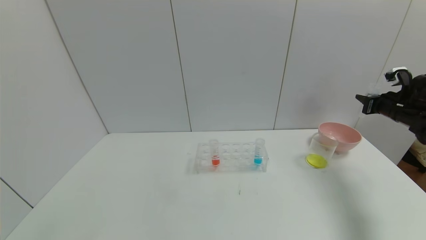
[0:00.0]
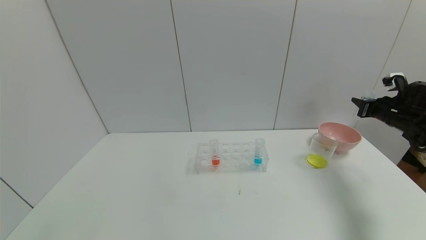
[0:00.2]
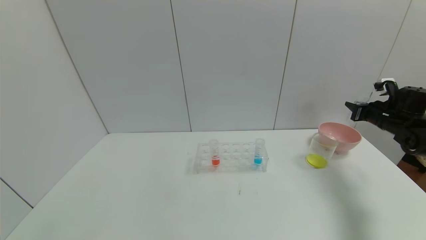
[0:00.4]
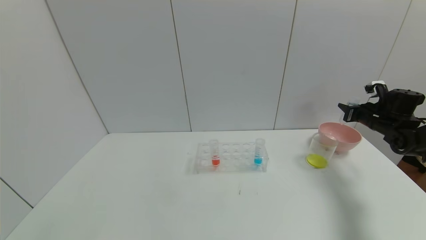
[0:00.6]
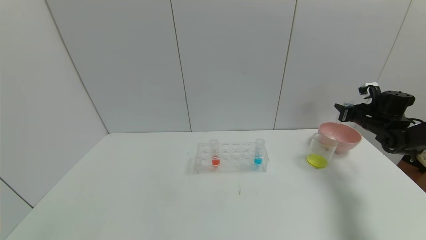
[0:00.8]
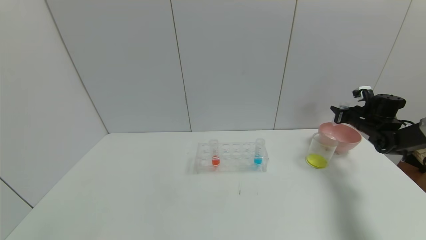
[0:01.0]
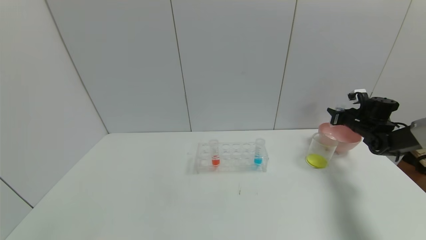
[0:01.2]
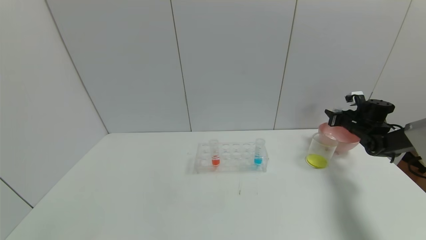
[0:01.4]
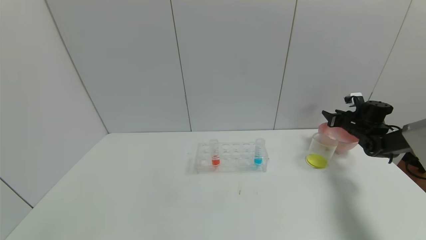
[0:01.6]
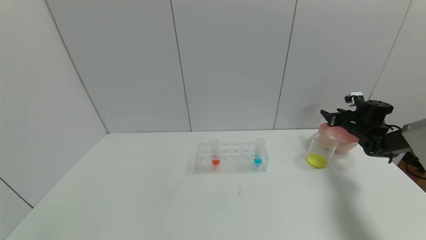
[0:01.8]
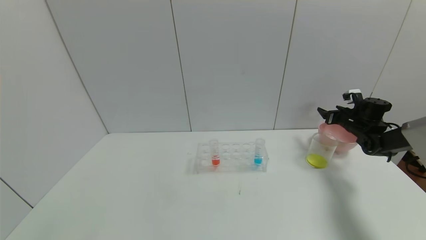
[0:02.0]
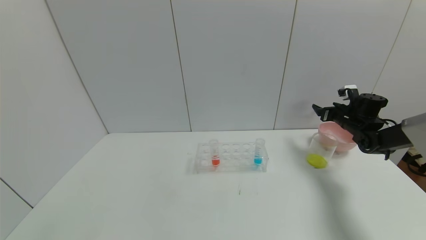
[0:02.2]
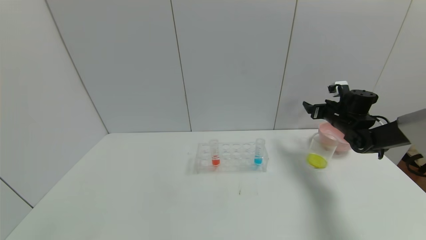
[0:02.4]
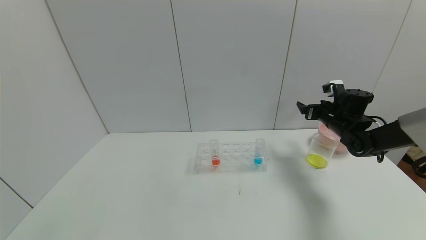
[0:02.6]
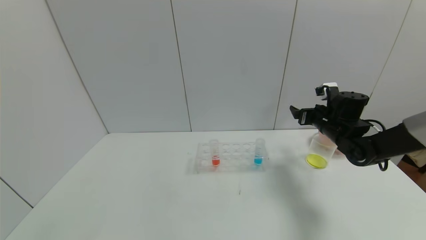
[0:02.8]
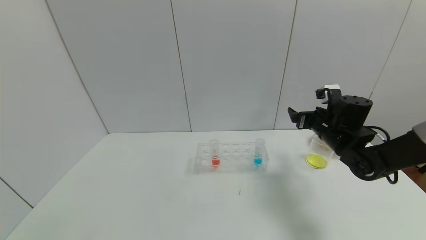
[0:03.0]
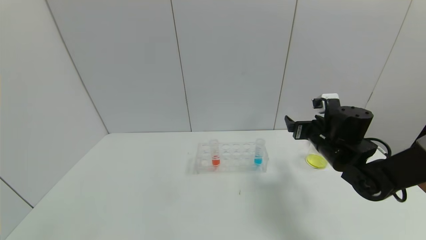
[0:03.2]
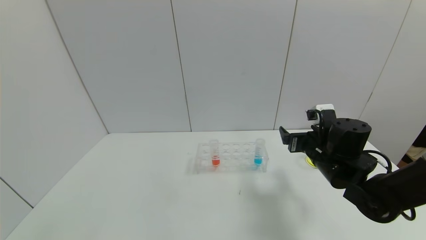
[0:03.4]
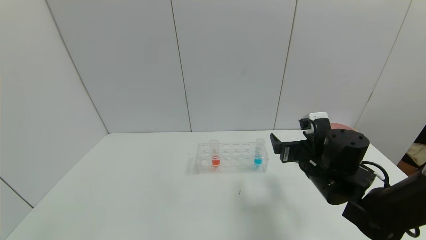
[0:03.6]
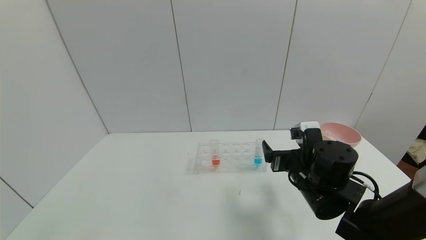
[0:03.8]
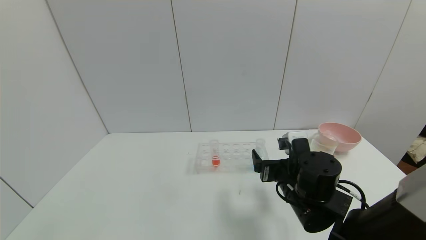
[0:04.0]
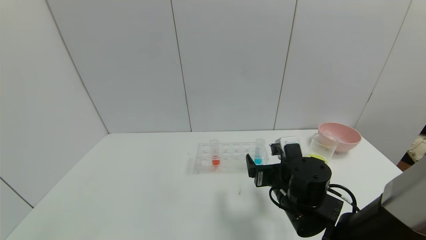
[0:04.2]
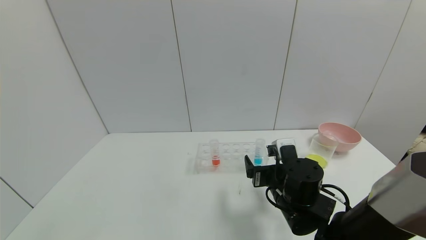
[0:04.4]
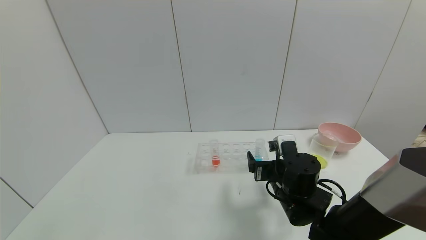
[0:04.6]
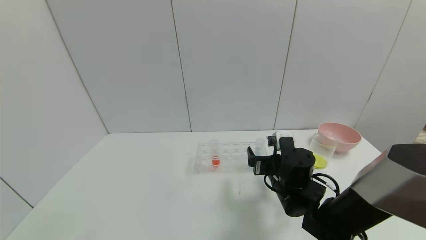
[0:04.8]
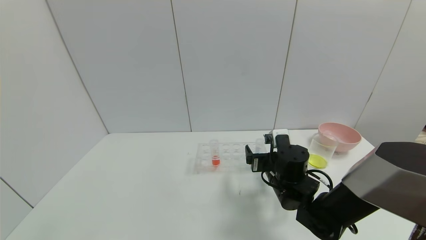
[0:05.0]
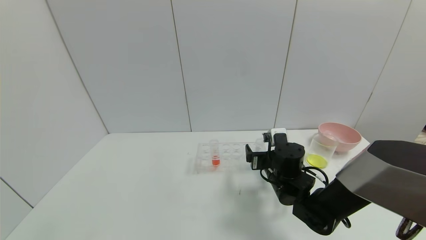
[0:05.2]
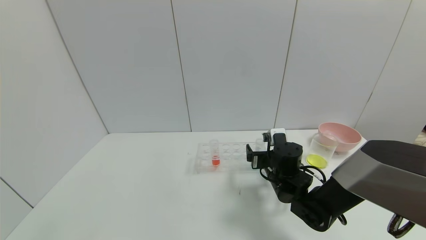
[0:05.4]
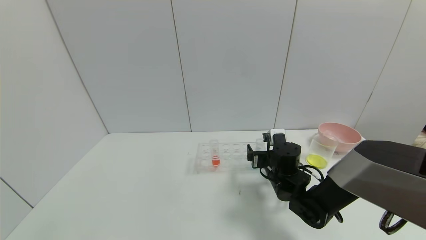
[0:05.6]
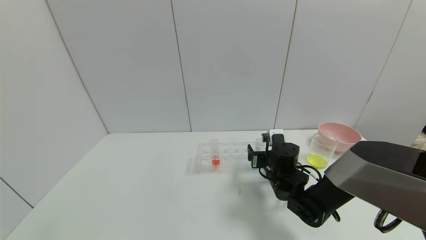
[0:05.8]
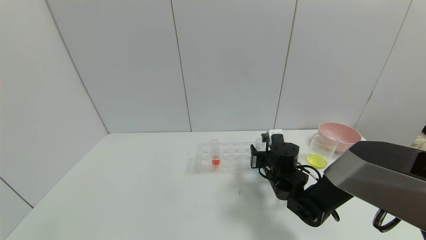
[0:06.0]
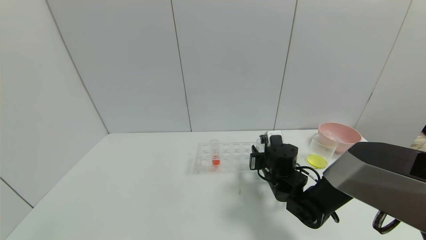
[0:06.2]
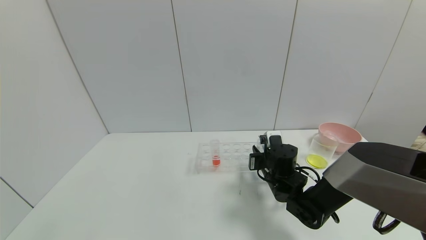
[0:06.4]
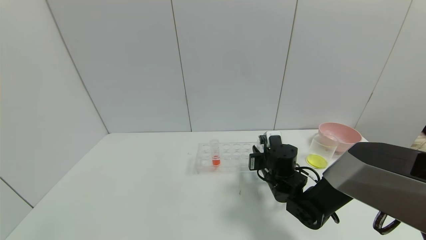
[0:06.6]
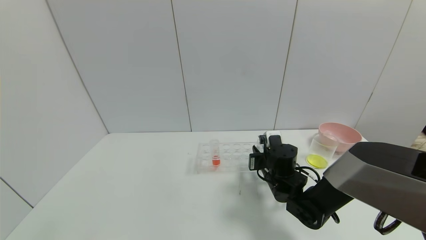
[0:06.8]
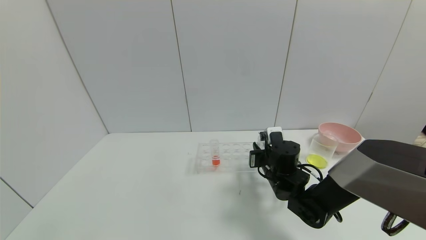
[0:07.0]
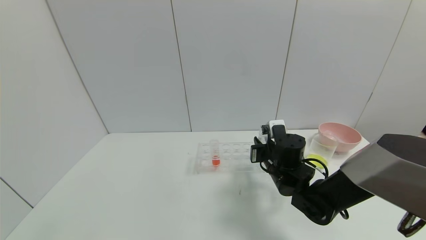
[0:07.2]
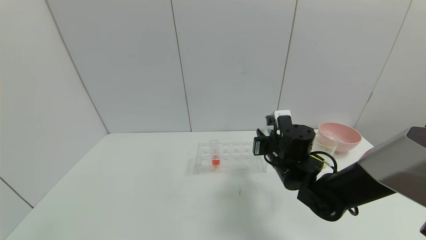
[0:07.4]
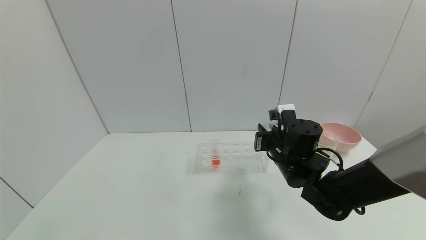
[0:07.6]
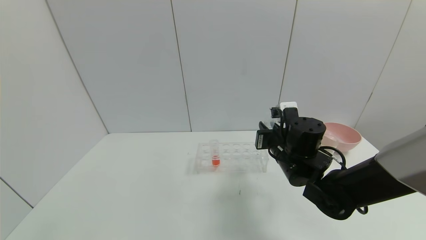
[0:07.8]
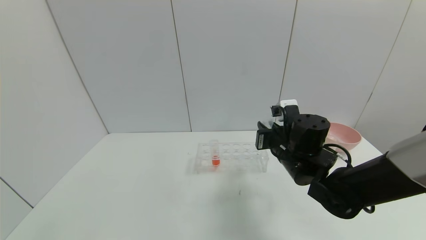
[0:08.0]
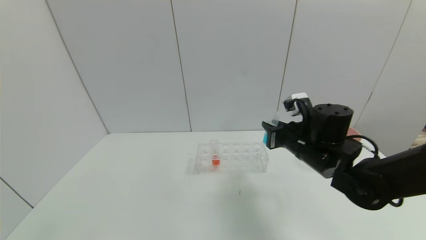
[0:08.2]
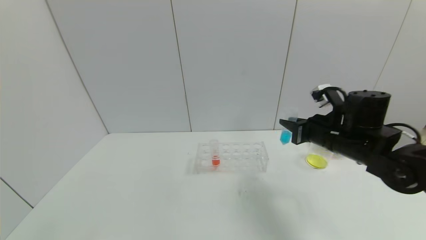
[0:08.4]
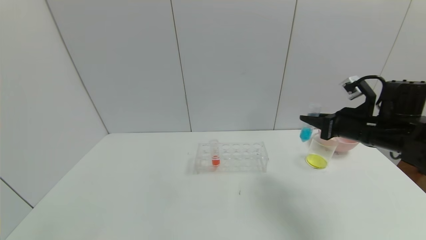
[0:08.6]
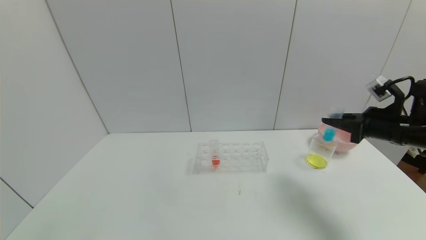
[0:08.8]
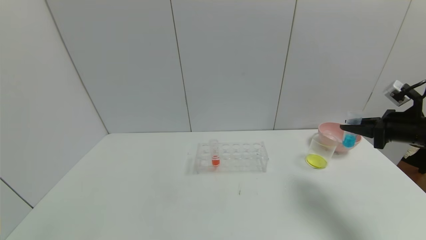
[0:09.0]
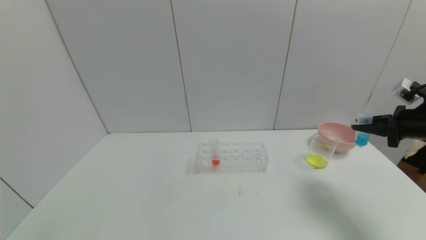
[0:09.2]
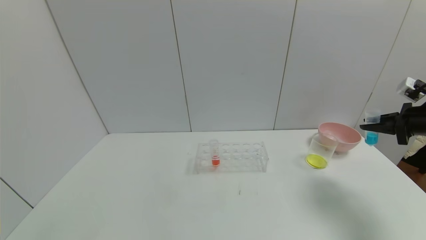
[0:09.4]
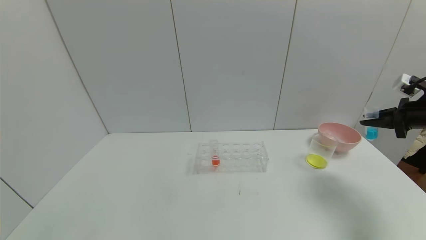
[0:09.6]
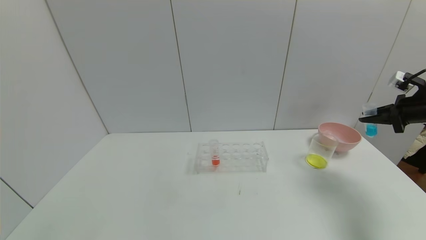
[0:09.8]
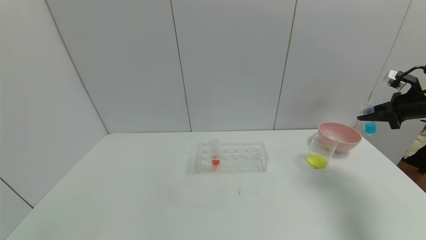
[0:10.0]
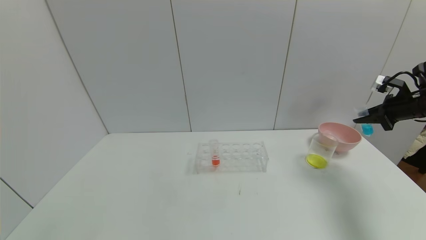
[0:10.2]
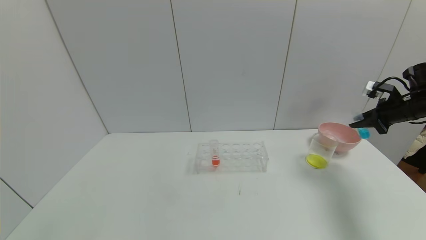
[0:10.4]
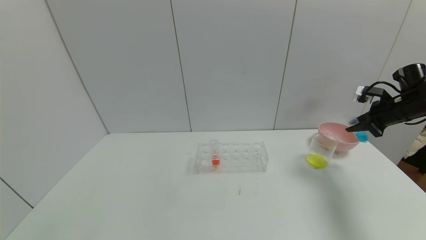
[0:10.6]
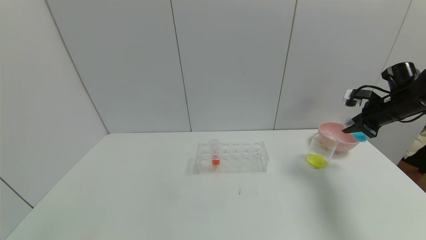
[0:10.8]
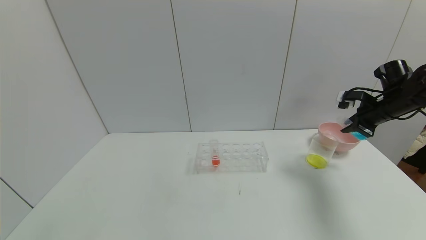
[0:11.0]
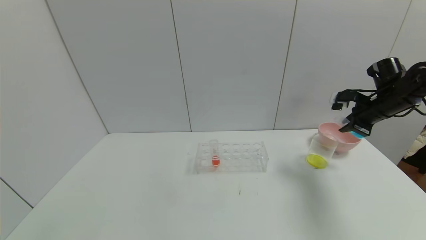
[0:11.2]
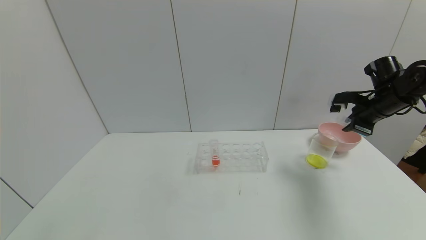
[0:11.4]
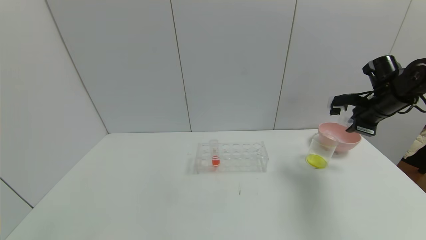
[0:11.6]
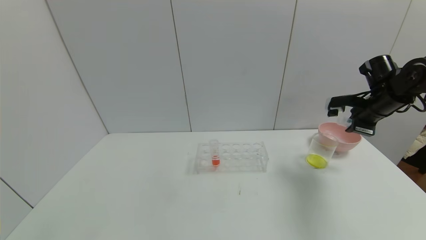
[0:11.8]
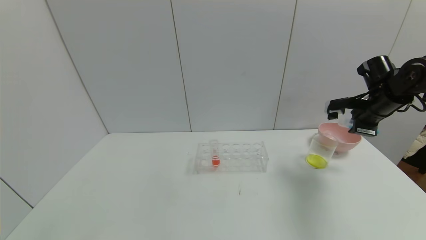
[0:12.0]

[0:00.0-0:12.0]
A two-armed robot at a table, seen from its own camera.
Task of the whole recording: pick up the test tube with yellow pigment and the test tube with blue pigment by grippers and pour them into the beaker.
Step, 0:00.0 to 0:02.0: Place the test tube into the bowl with the right gripper.
Step, 0:02.2 to 0:06.6: Grasp the blue reagent with the right gripper.
0:00.0 to 0:01.6: The right gripper travels downward and forward by about 15 cm, and opens up.
0:01.6 to 0:03.0: The right gripper travels to the left and backward by some 20 cm, and opens its fingers.
0:03.0 to 0:04.4: The right gripper heads to the left, backward and downward, covering approximately 20 cm.
0:04.4 to 0:06.0: The right gripper goes about 10 cm forward, and closes.
0:06.0 to 0:07.6: The right gripper is displaced upward by approximately 10 cm, and closes up.
0:07.6 to 0:09.0: The right gripper is displaced to the right by approximately 25 cm.
0:09.0 to 0:10.4: The right gripper shifts about 10 cm forward and to the right.
0:10.4 to 0:12.0: The right gripper shifts about 10 cm to the left.

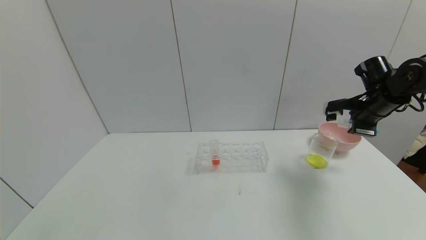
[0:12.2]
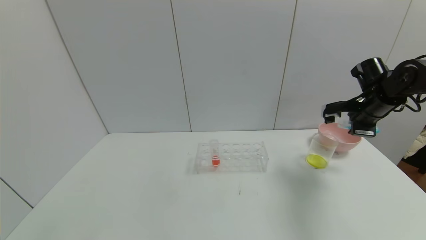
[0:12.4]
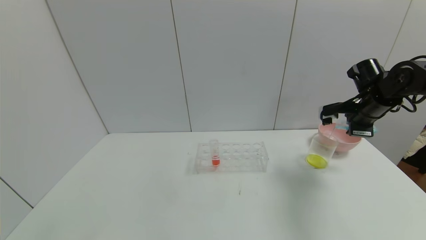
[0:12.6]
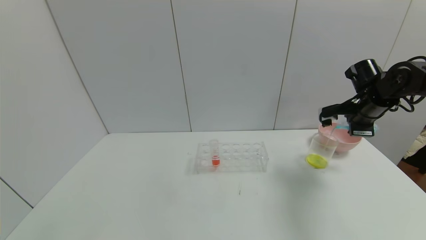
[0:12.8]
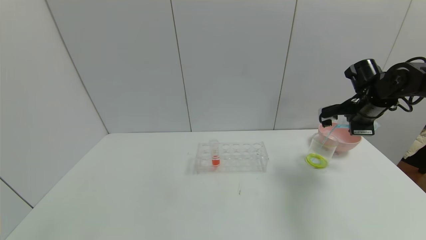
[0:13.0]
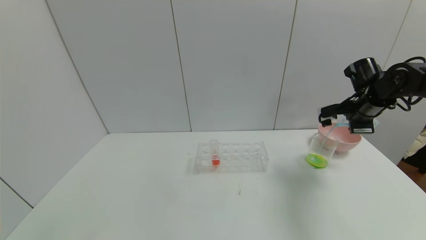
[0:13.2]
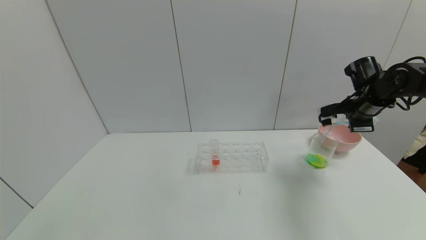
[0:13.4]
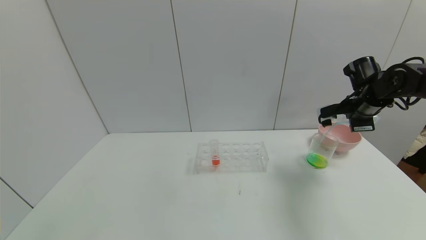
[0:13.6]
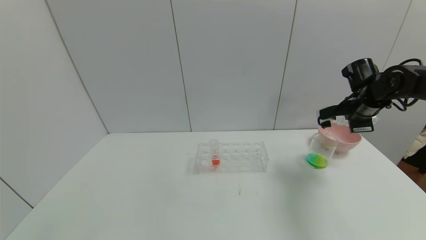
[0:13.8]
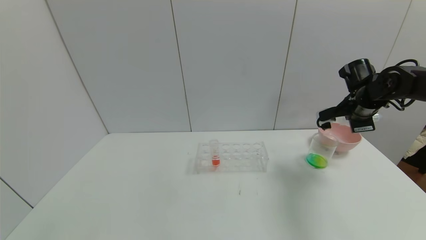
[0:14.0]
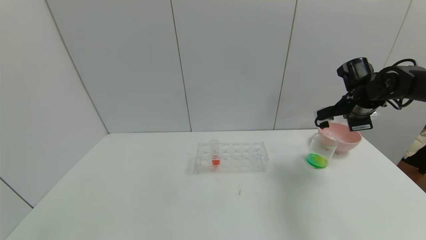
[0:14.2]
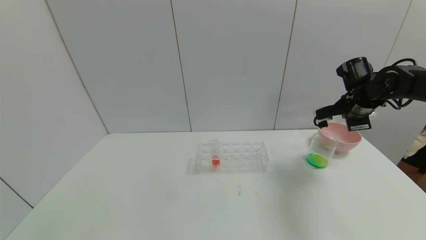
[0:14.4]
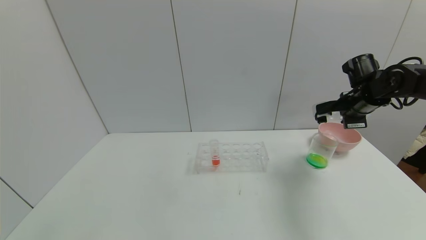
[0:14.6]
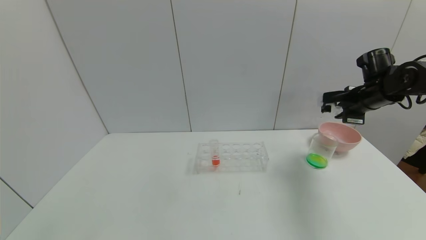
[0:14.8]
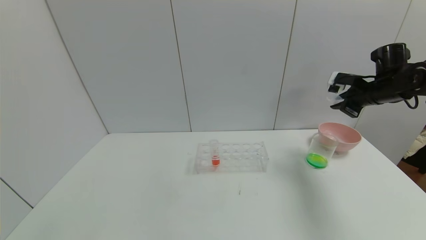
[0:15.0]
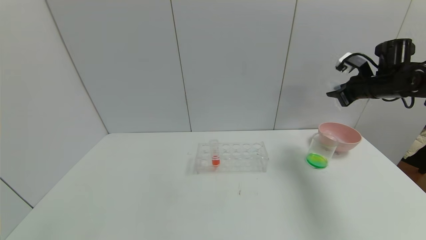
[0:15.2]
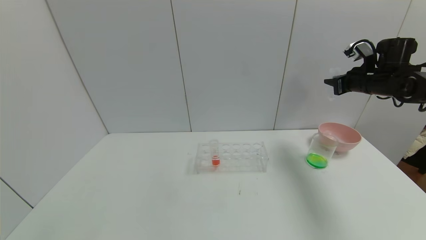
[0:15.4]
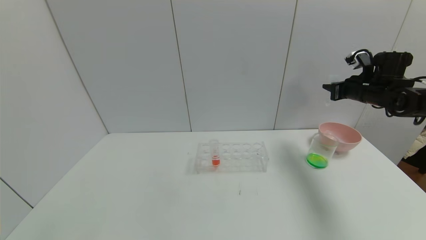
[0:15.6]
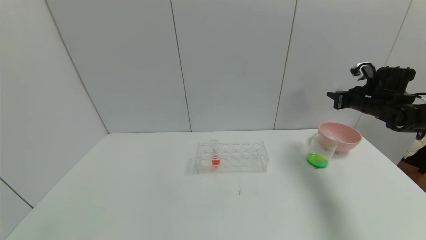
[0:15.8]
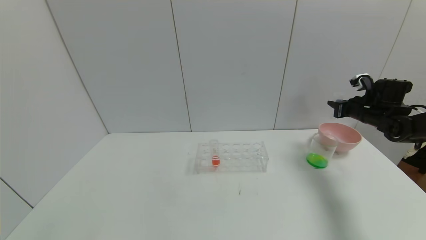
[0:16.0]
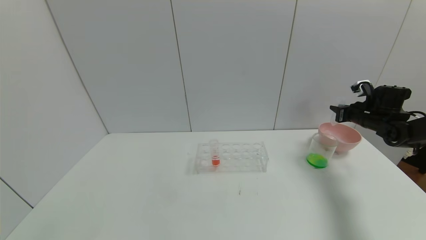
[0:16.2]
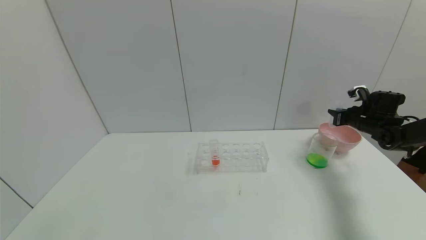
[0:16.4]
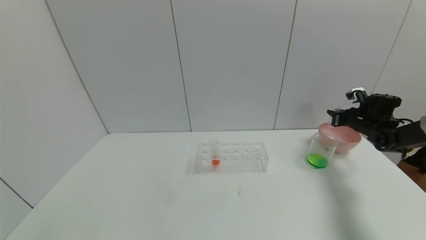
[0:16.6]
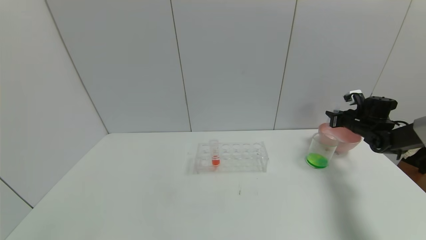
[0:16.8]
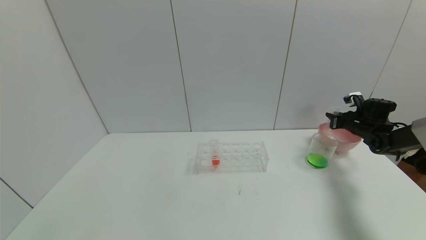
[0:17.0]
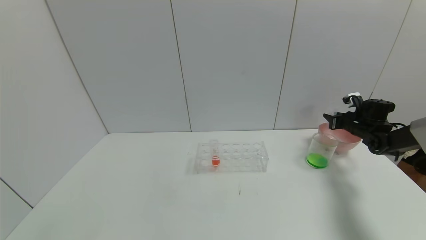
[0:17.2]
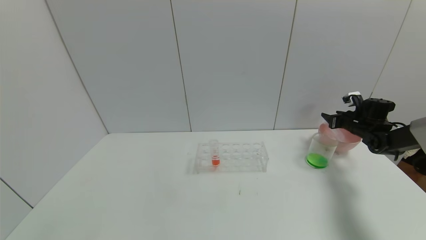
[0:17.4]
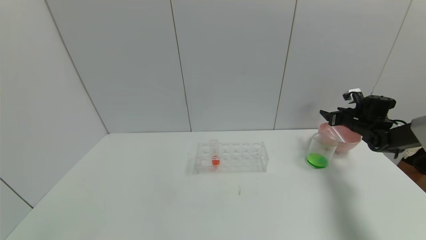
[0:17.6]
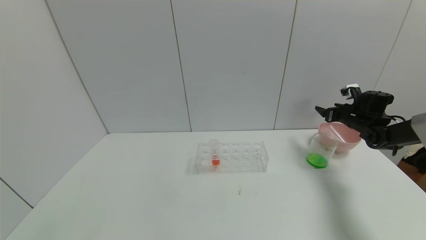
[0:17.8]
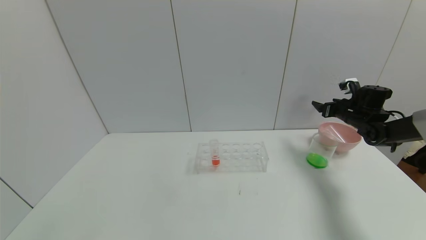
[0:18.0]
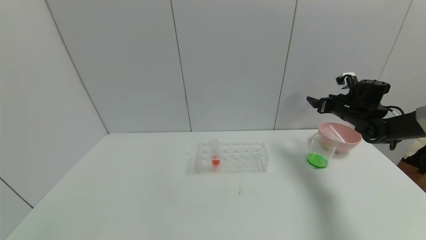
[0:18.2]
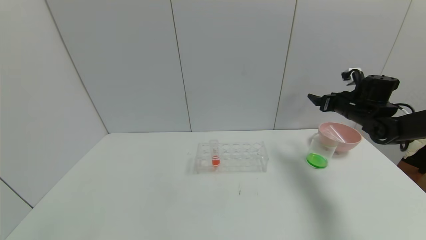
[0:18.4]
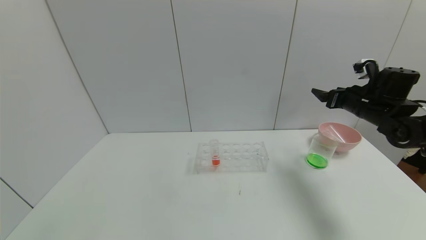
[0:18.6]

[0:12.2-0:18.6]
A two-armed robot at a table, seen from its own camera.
Task of the whole recording: pick up the test tube with yellow pigment and the test tube with blue pigment by grippers and pour them into the beaker.
Step, 0:12.2 to 0:15.0: Pour the blue reagent into the graduated cylinder with the right gripper.
Step, 0:15.2 to 0:18.2: Place the test tube into the bowl with the right gripper.
0:12.2 to 0:13.8: The grippers stay close to where they were, moving slightly.
0:13.8 to 0:15.4: The right gripper changes place by some 5 cm.
0:15.4 to 0:17.0: The right gripper heads downward, covering about 15 cm.
0:17.0 to 0:18.6: The right gripper goes approximately 15 cm upward, to the left and backward, and opens.
